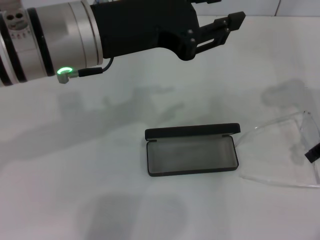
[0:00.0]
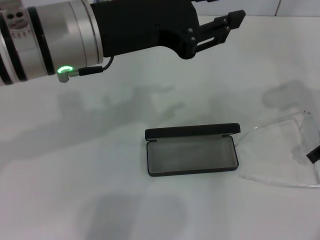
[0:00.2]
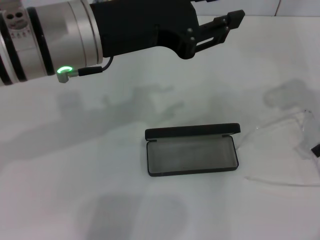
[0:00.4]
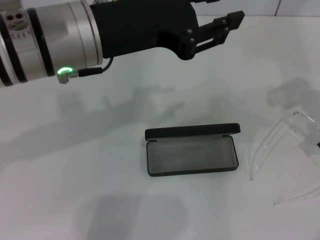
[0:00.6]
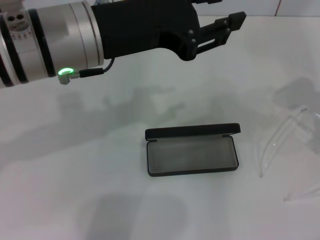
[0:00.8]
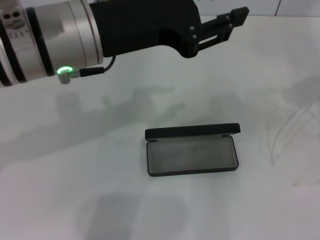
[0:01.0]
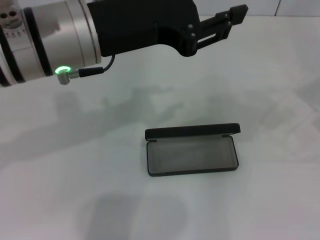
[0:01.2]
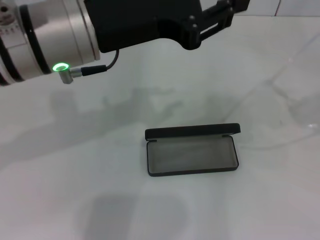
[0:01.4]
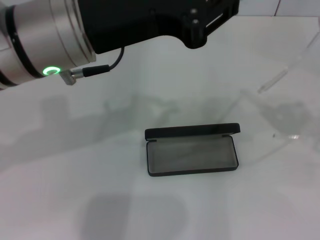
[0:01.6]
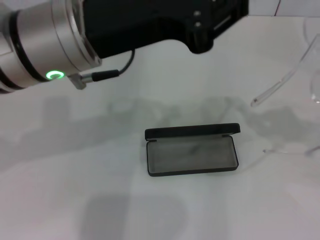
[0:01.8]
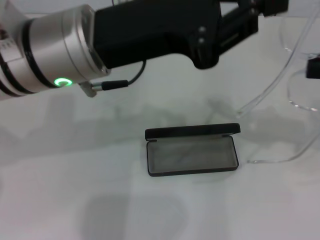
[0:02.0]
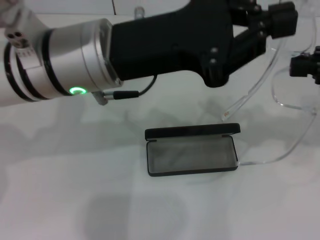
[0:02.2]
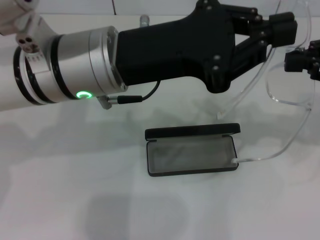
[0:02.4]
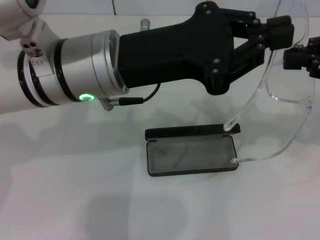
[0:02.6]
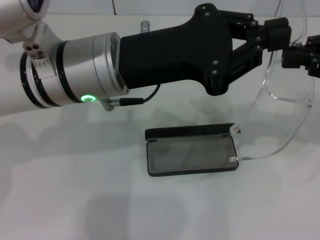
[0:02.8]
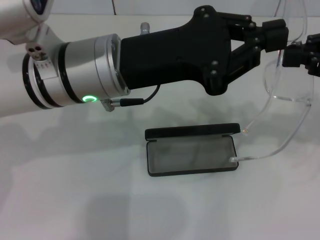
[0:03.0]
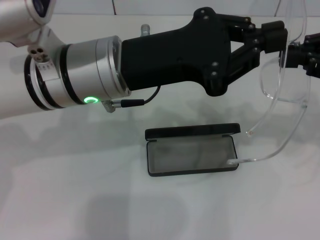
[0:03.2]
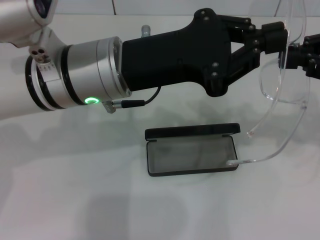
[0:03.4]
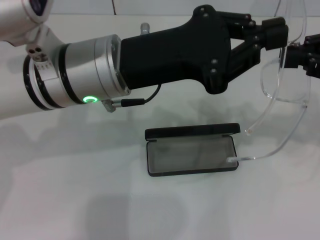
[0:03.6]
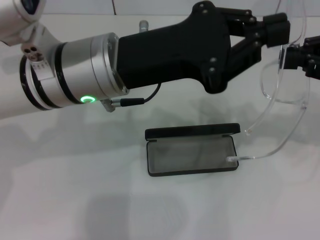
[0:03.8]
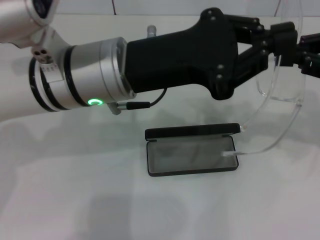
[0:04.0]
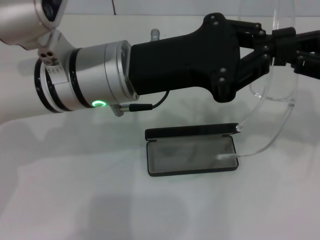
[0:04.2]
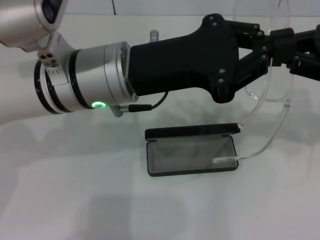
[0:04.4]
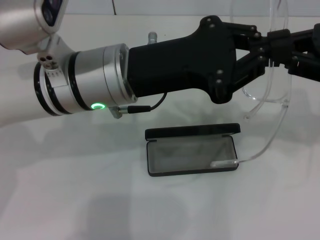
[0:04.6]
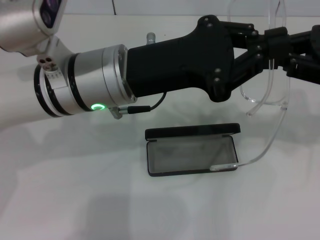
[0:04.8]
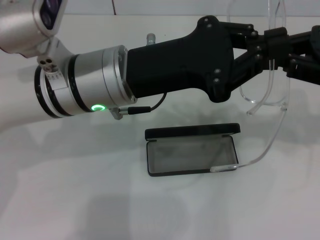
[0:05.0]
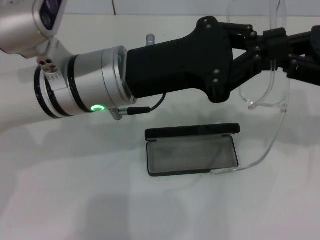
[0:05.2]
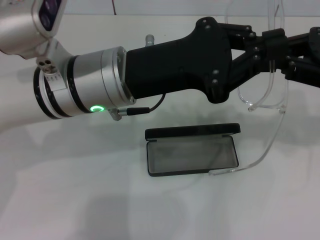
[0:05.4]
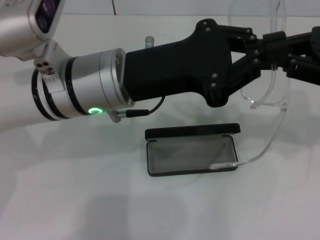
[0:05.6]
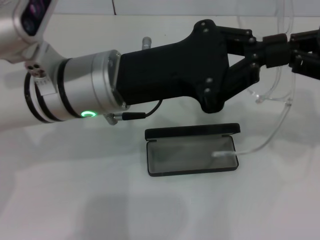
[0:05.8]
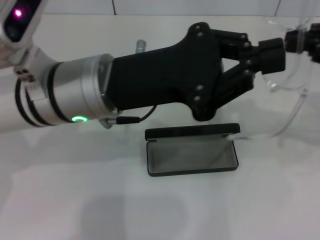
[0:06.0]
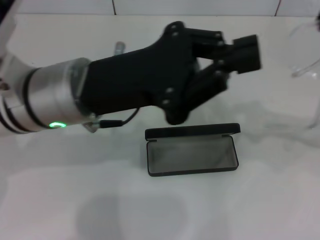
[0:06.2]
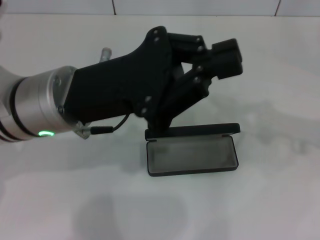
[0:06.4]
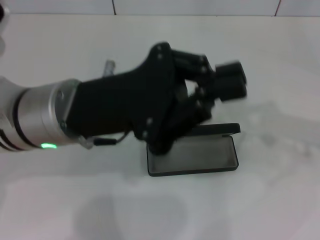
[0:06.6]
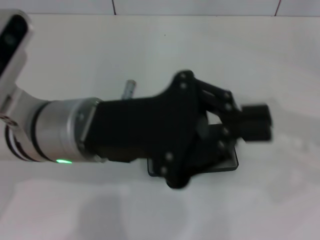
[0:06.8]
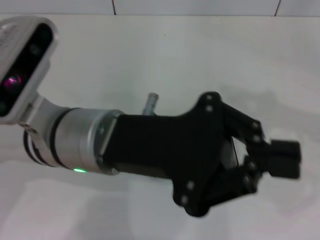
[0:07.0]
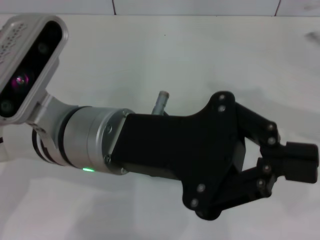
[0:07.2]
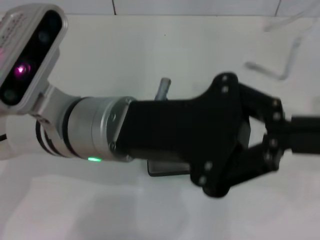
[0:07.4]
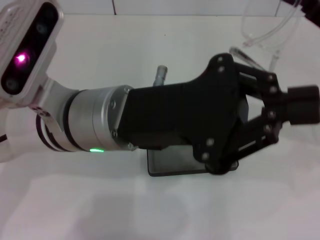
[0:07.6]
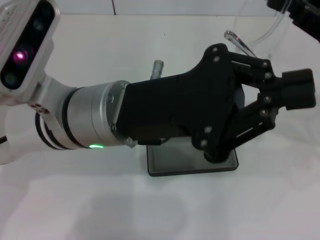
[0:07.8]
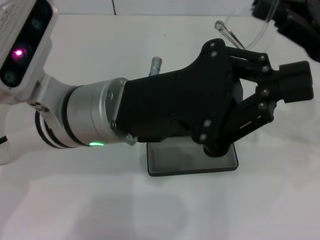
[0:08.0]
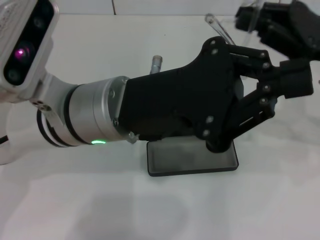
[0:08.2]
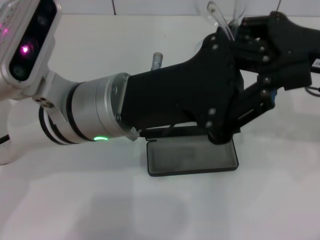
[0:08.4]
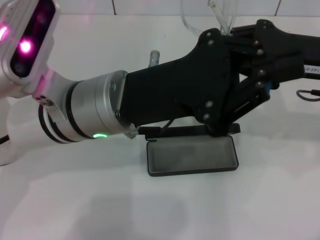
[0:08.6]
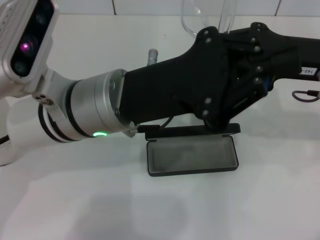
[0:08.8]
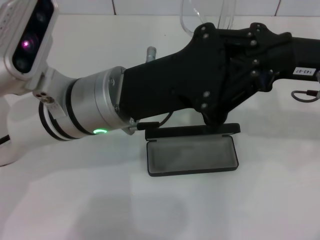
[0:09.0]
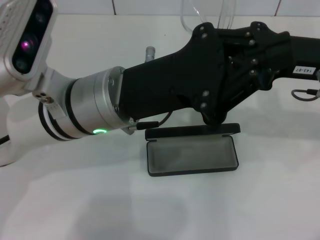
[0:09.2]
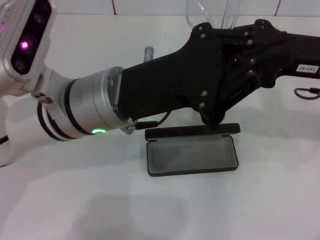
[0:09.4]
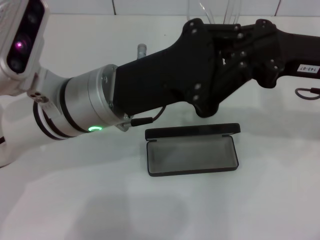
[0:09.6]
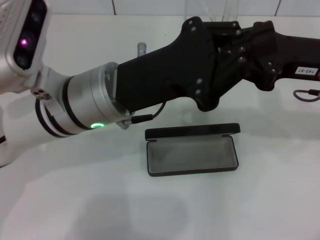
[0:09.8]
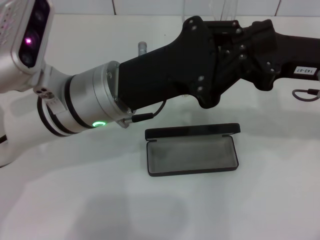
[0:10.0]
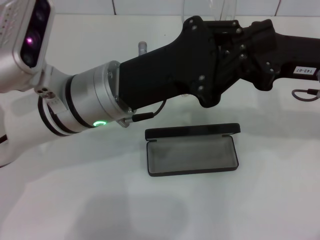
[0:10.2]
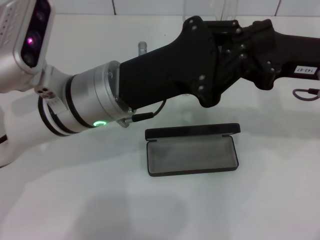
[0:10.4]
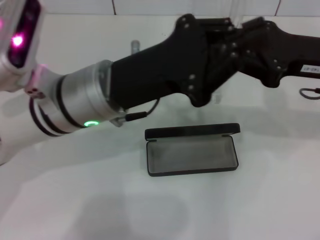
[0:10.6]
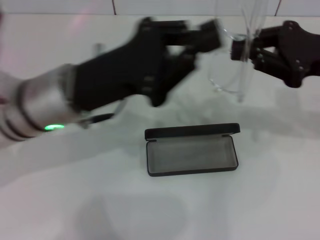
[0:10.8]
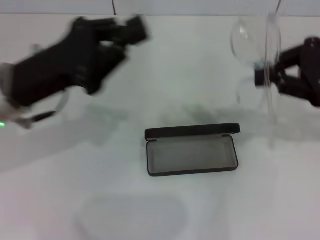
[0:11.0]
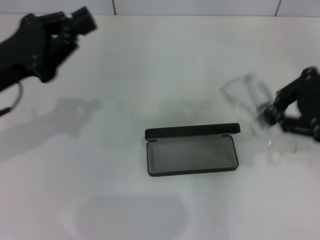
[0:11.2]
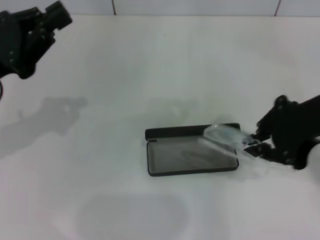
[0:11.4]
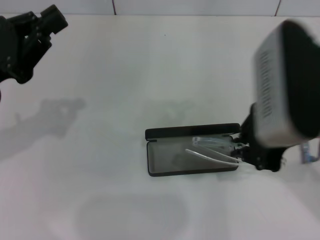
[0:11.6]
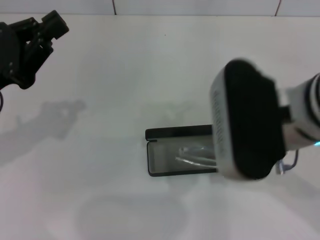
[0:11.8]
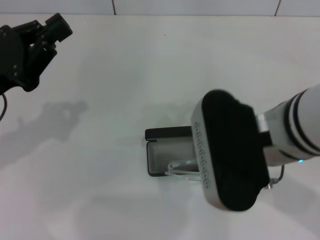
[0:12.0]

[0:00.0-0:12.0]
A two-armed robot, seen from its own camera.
Step, 0:00.8 to 0:10.2: Lift the glasses with your right hand.
0:00.0 to 0:01.6: The right gripper moves to the right, upward and backward, roughly 15 cm, and closes up.
0:01.6 to 0:03.0: The left gripper is displaced downward by about 5 cm, and closes its fingers. The right gripper moves to the left, some 5 cm.
0:03.0 to 0:04.4: The grippers make only small movements.
0:07.6 to 0:09.0: The right gripper is displaced to the left by some 5 cm.
0:09.0 to 0:10.4: The grippers move only a little.
0:10.4 to 0:12.0: The left gripper heads to the left, covering roughly 20 cm; the right gripper moves to the left and backward, approximately 15 cm.

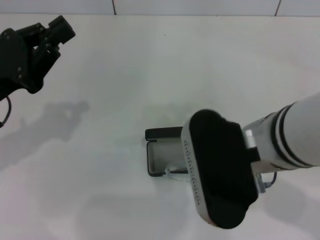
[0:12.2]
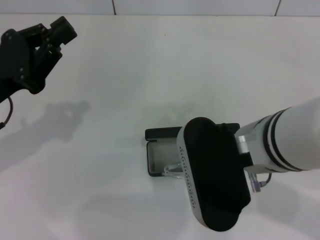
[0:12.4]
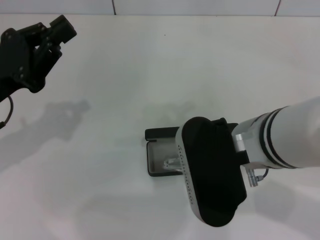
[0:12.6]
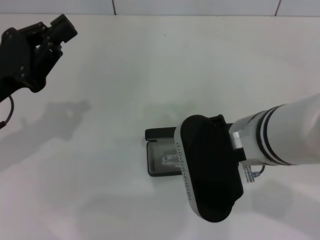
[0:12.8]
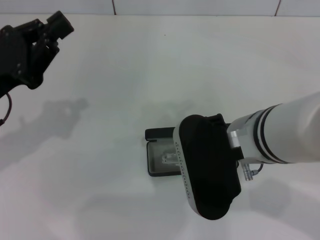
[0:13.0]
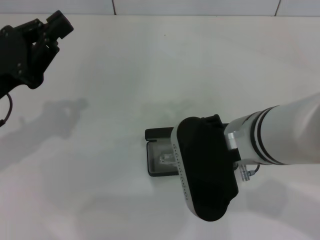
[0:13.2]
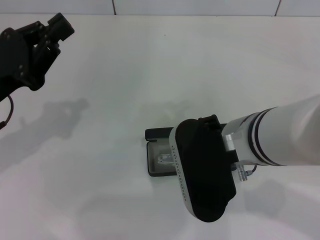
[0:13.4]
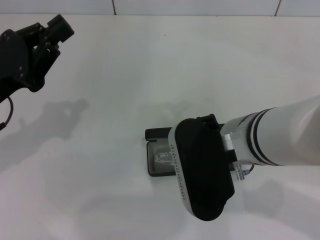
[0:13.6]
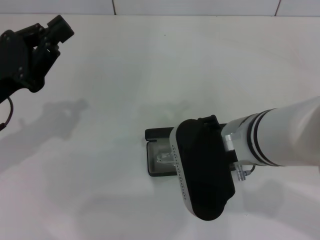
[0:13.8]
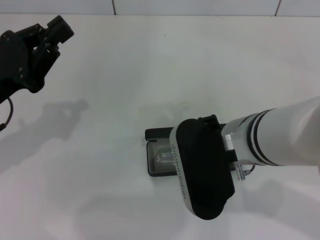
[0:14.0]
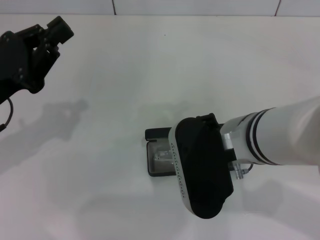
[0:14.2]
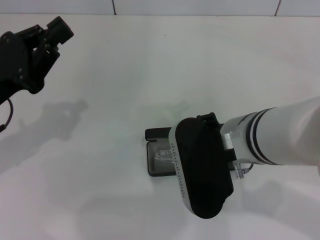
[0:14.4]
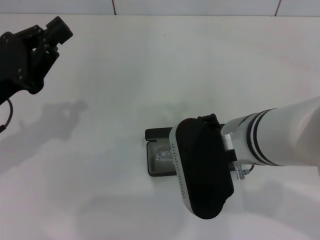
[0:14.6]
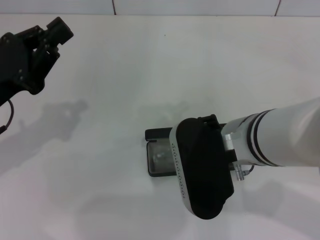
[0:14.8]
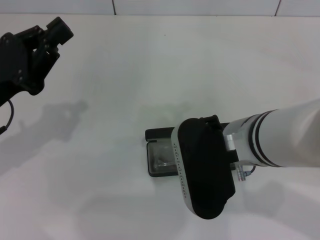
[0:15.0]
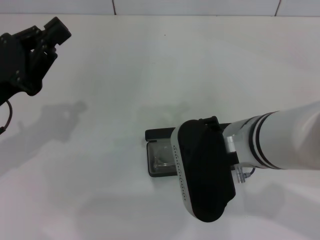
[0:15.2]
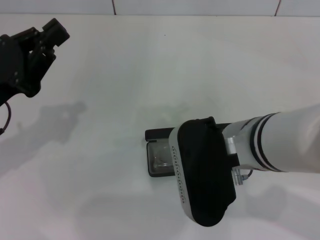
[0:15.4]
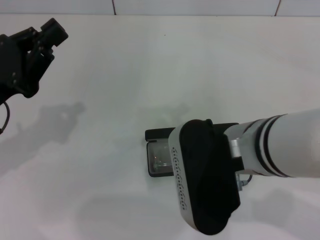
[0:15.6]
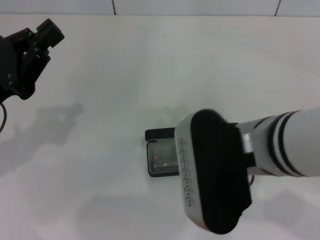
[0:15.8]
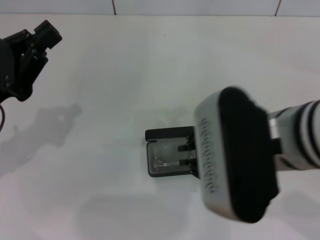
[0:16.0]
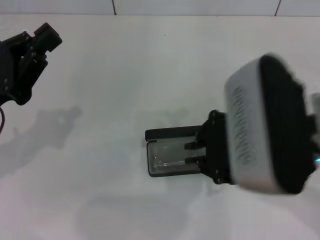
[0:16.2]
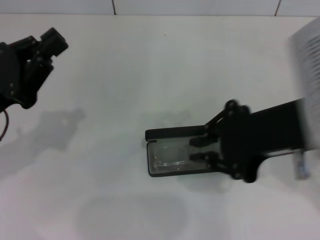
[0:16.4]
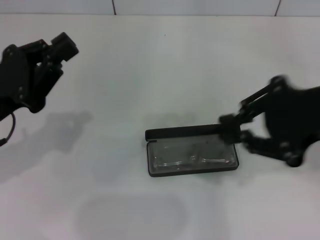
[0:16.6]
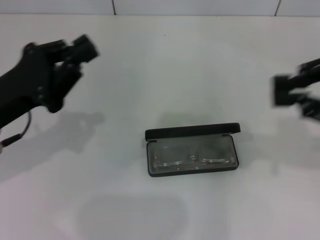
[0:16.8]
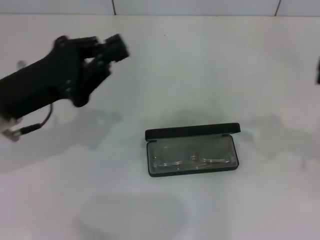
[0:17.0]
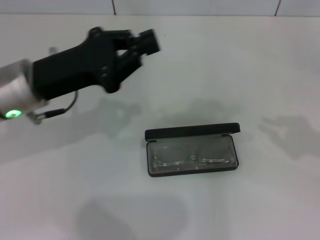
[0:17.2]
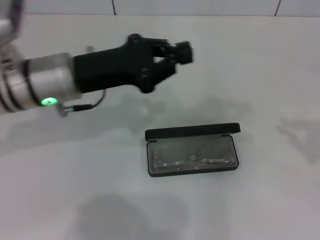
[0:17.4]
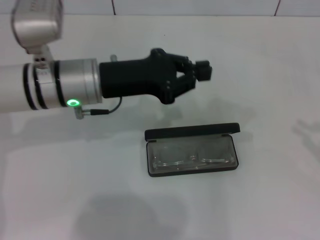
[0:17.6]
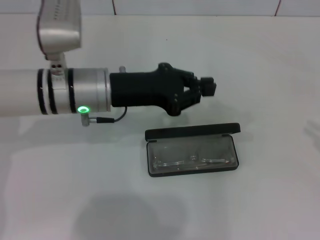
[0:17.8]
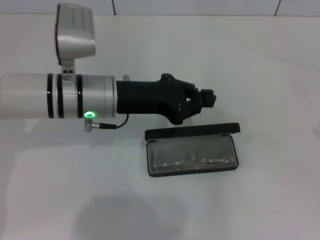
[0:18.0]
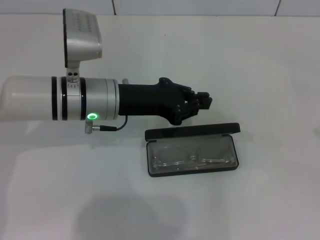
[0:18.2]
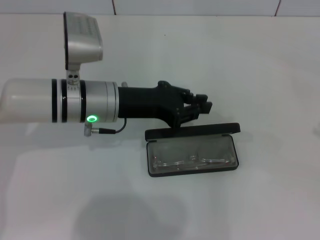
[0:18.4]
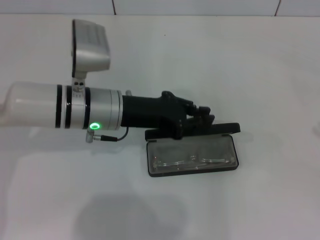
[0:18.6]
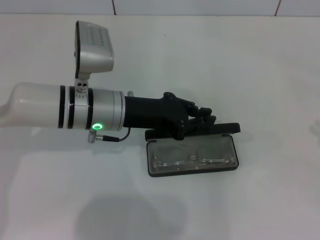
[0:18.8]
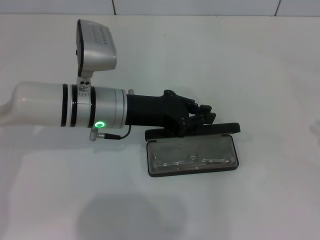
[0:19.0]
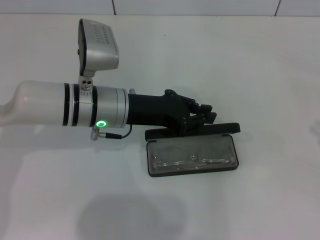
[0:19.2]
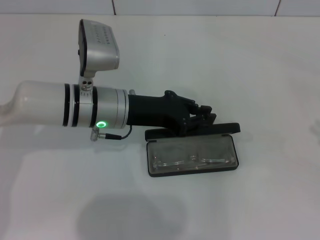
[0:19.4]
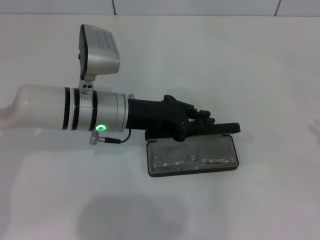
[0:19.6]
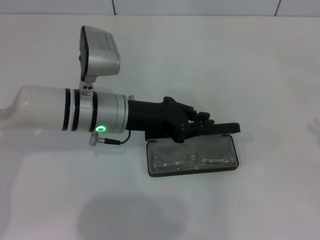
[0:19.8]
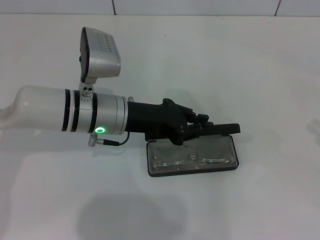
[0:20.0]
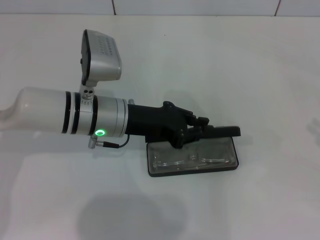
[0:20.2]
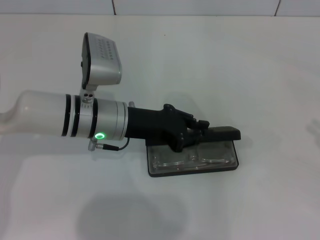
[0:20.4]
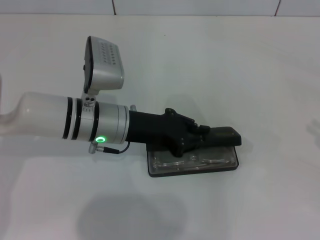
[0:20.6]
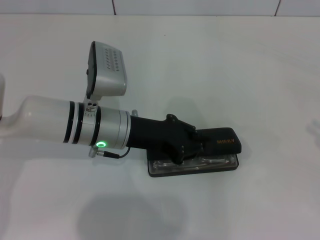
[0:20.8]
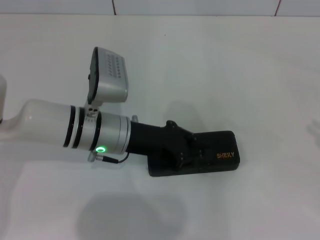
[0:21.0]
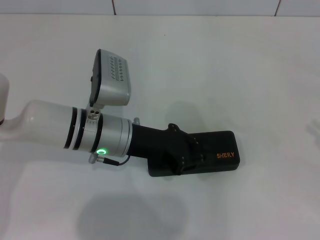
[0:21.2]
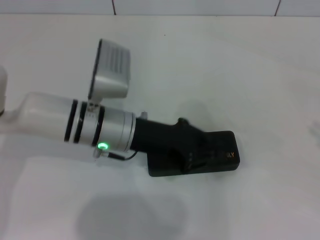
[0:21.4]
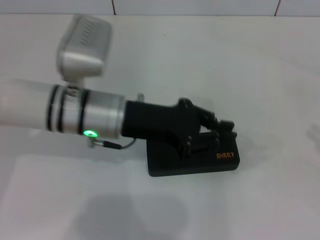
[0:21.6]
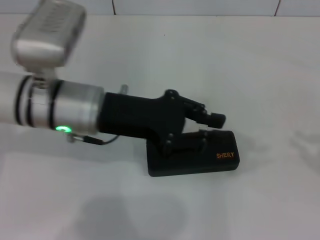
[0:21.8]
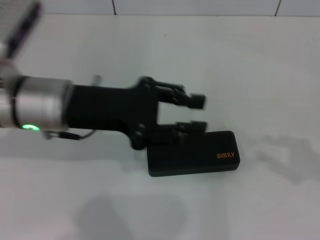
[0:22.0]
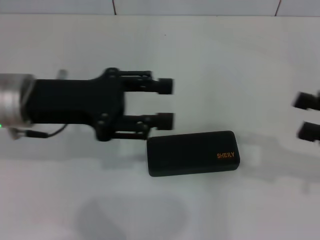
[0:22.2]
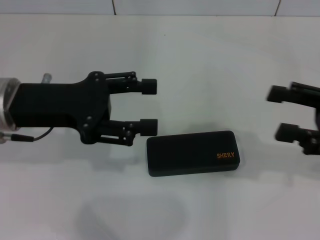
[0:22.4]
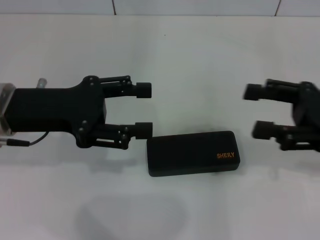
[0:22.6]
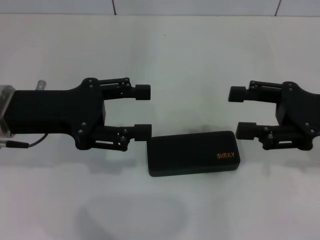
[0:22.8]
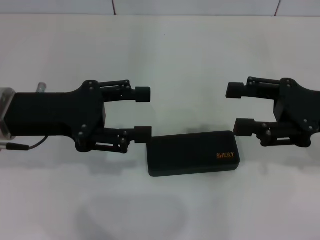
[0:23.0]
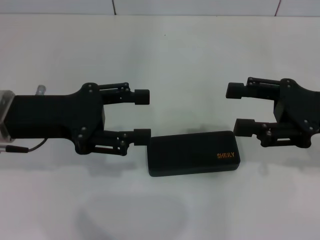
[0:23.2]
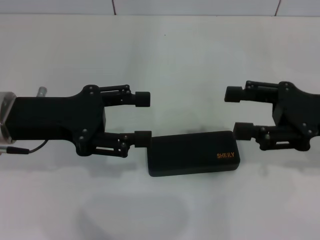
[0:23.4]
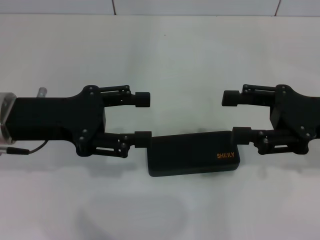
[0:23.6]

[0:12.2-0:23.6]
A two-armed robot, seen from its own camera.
Step, 0:12.2 to 0:15.2: Put the glasses into the case with your right hand.
Step, 0:15.4 to 0:21.0: Close the glasses case with your left hand.
0:12.2 to 0:13.6: The grippers move only a little.
0:13.6 to 0:15.0: Both grippers stay about where they are.
0:15.0 to 0:16.4: The right gripper heads upward and to the right, covering roughly 10 cm.
0:16.4 to 0:17.8: The left gripper shifts about 15 cm to the right and forward, while the right gripper goes about 25 cm to the right.
0:17.8 to 0:20.8: The grippers move only a little.
0:20.8 to 0:22.2: The right gripper moves to the left, some 10 cm, and opens. The left gripper is displaced upward and to the left by about 15 cm.
0:22.2 to 0:23.6: The left gripper opens its fingers; the right gripper heads to the left, covering about 10 cm, and opens its fingers.
